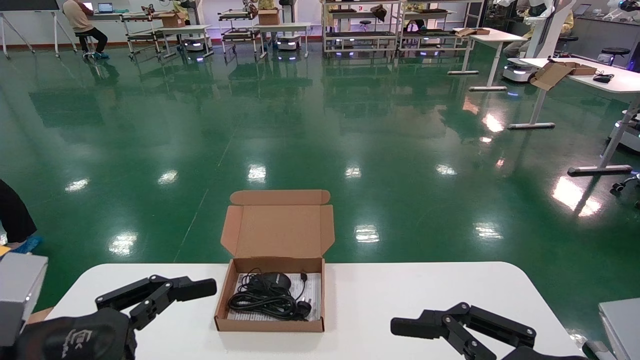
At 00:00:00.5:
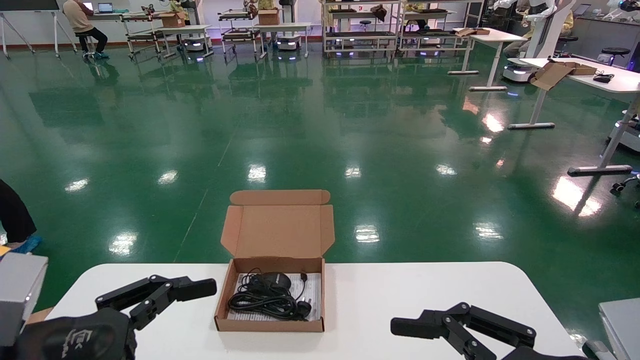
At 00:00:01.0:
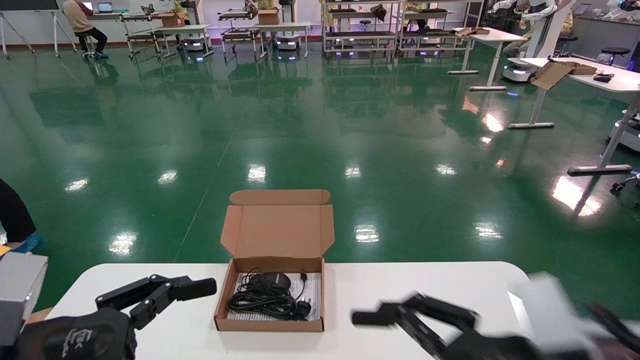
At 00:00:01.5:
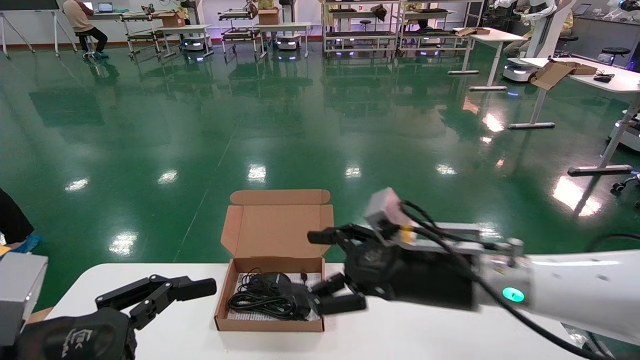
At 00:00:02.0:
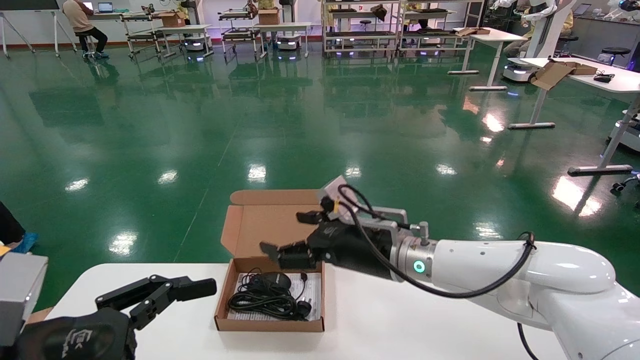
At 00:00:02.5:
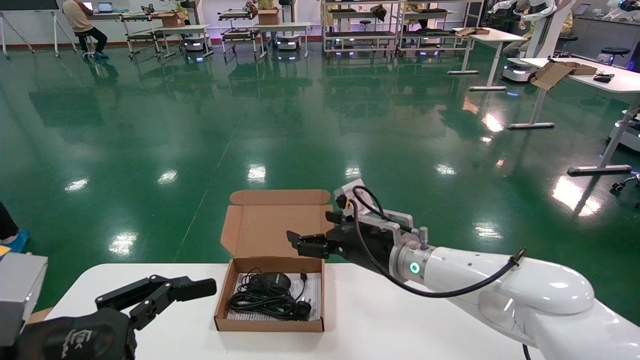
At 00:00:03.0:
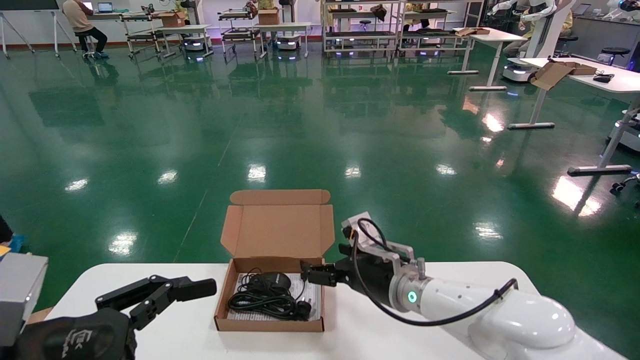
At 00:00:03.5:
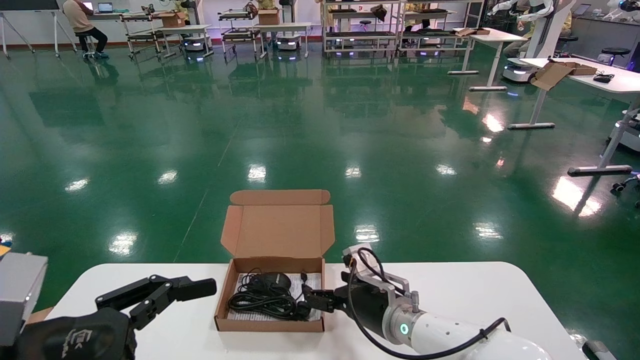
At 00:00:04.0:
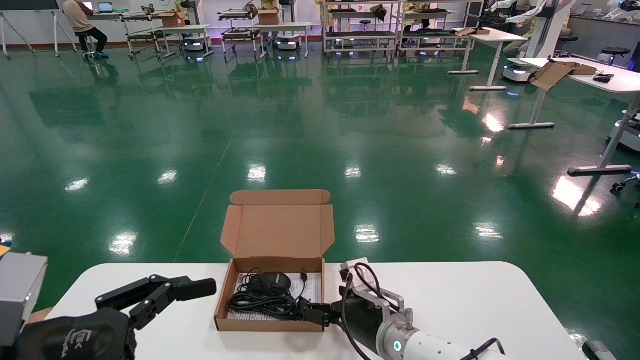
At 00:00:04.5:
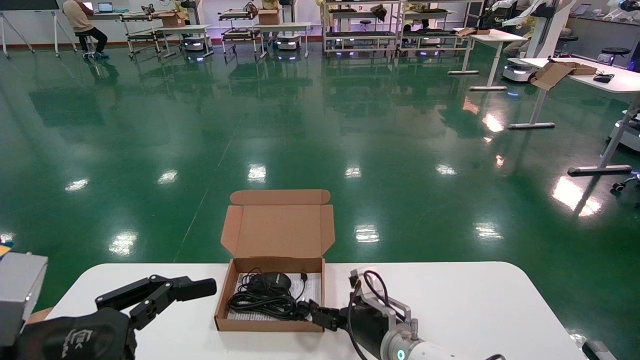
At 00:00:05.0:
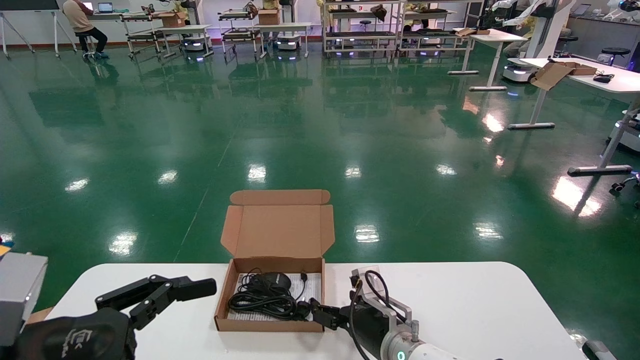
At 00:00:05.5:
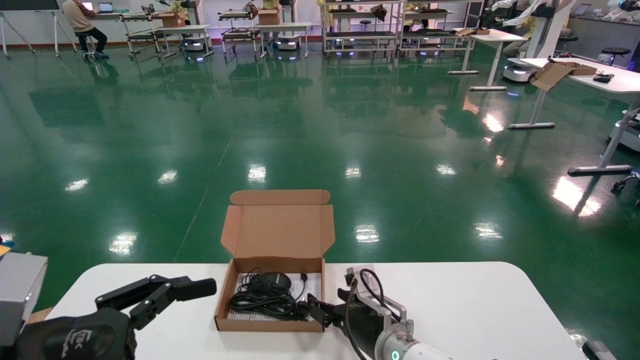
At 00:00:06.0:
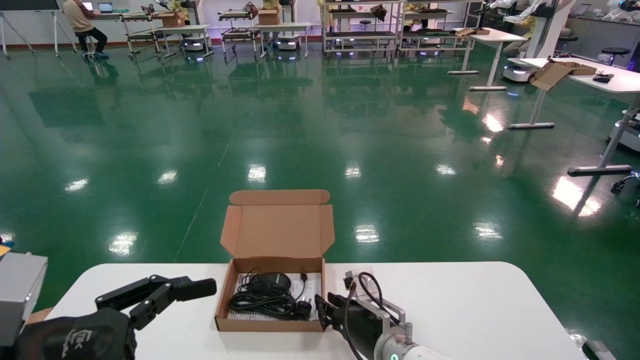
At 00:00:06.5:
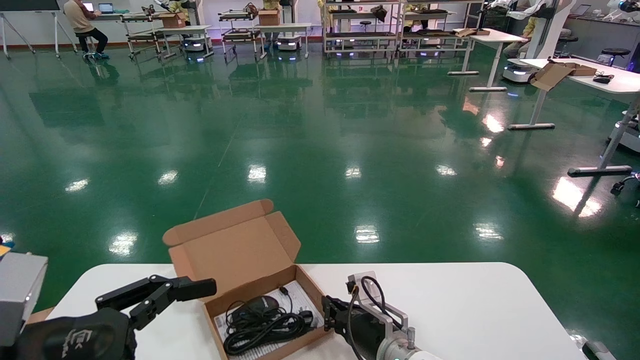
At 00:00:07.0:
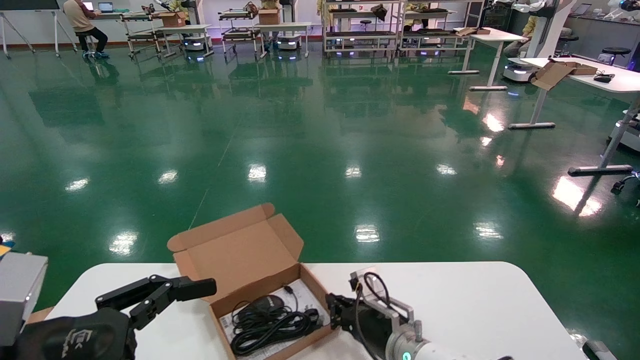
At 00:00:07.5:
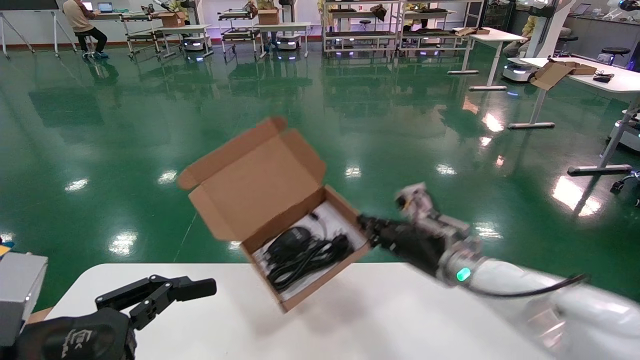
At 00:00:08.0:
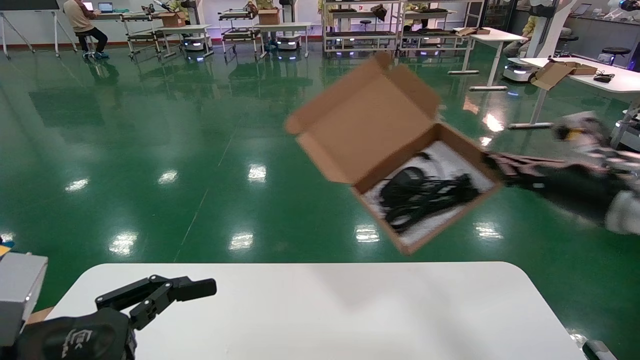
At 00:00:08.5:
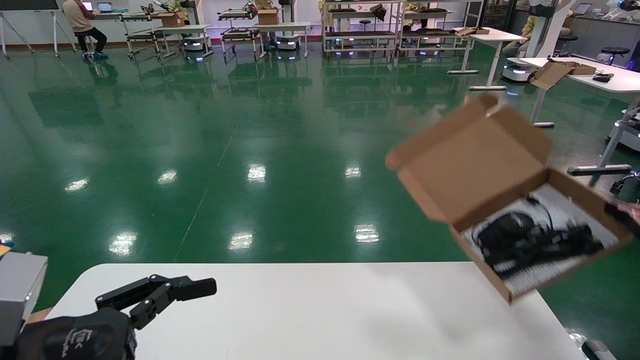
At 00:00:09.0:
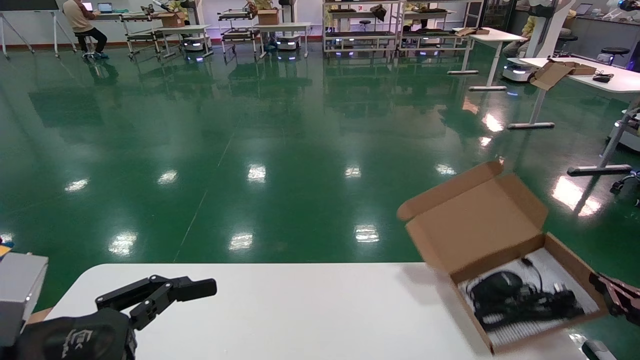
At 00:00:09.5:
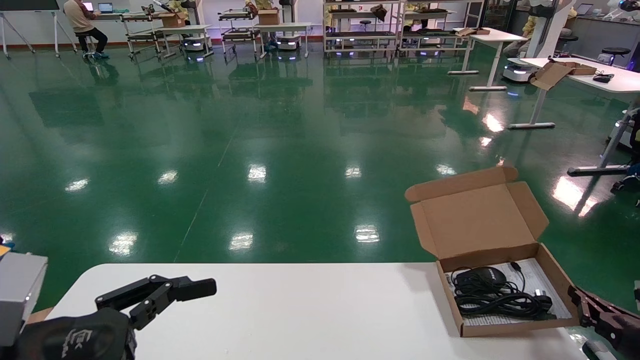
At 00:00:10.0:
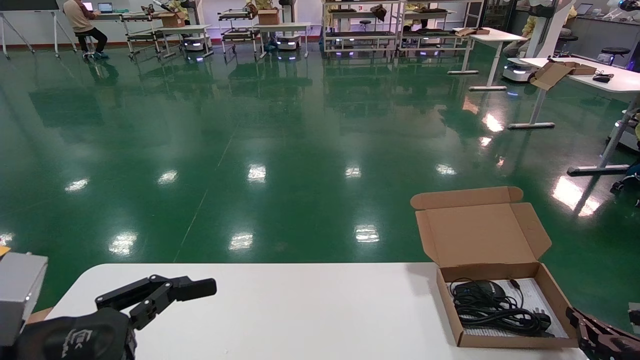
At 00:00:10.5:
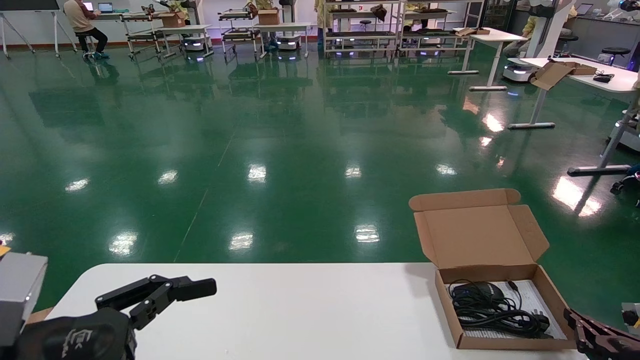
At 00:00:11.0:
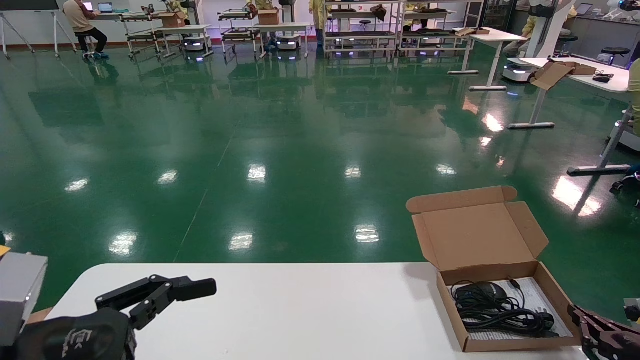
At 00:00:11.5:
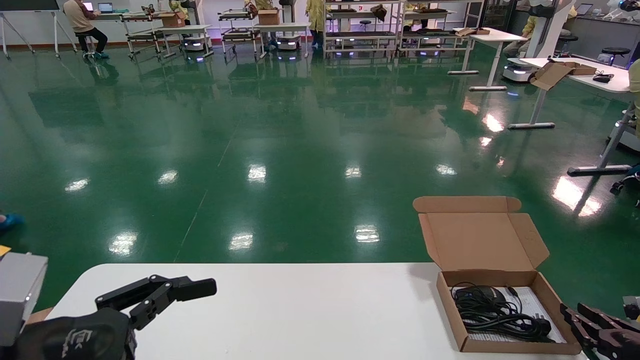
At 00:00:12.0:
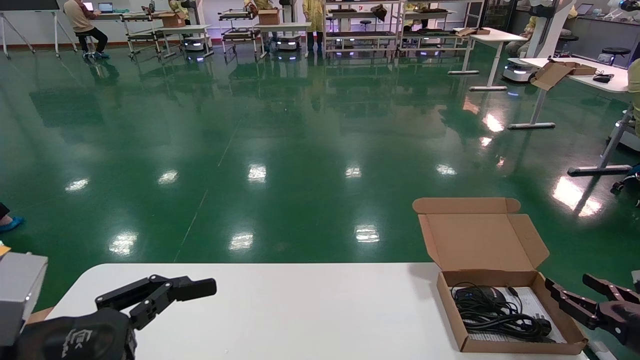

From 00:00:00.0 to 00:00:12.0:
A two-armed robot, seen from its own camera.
Task of the whole recording: move the position of the storage box with accessories on the table.
Step, from 00:00:01.0 to 00:00:07.0: Grab and pick up the open mouse box from the accessory packaging area.
Step, from 00:00:07.5 to 00:00:11.5: Place the open mouse box onto the operation table.
From 00:00:00.0 to 00:00:02.0: The right gripper moves forward and to the left, some 30 cm.
From 00:00:02.0 to 00:00:04.0: The right gripper is displaced downward by some 15 cm.
From 00:00:04.0 to 00:00:06.0: The right gripper closes its fingers.
From 00:00:06.0 to 00:00:08.0: The right gripper shifts approximately 35 cm to the right and upward.
From 00:00:08.0 to 00:00:10.0: The right gripper shifts approximately 30 cm downward and to the right.
From 00:00:10.0 to 00:00:12.0: The right gripper shifts some 5 cm upward, and opens its fingers.

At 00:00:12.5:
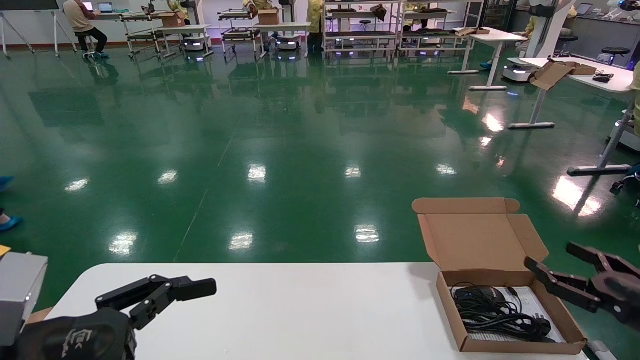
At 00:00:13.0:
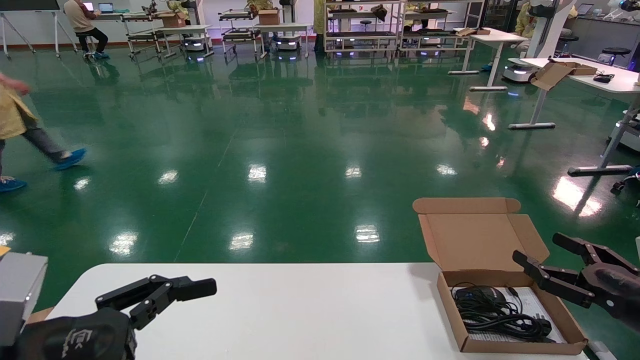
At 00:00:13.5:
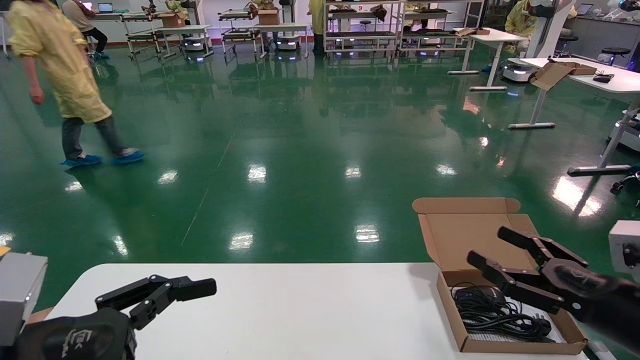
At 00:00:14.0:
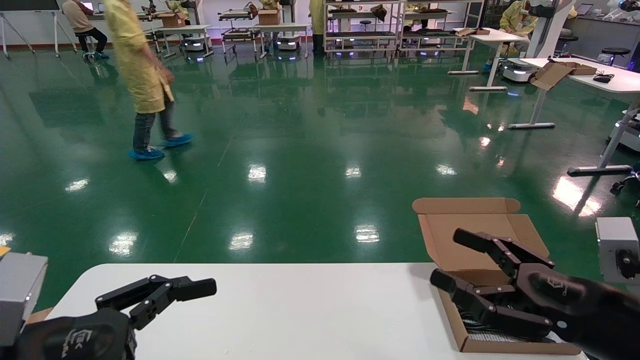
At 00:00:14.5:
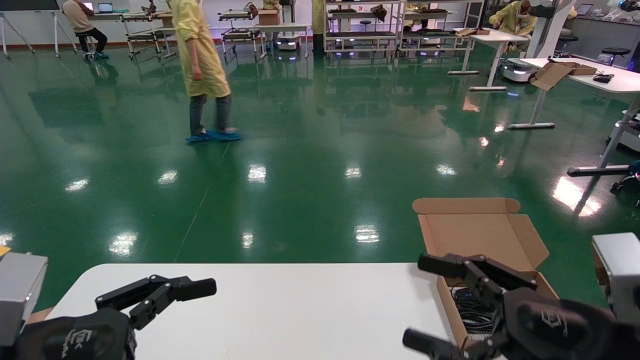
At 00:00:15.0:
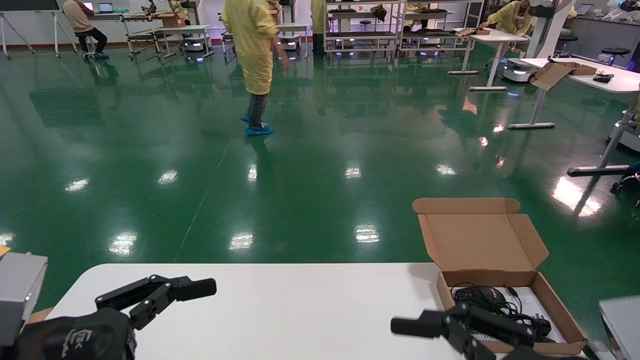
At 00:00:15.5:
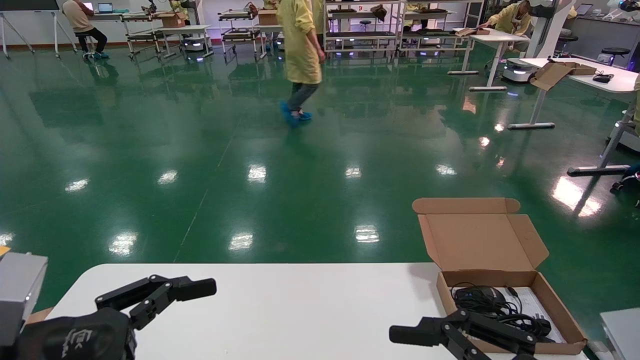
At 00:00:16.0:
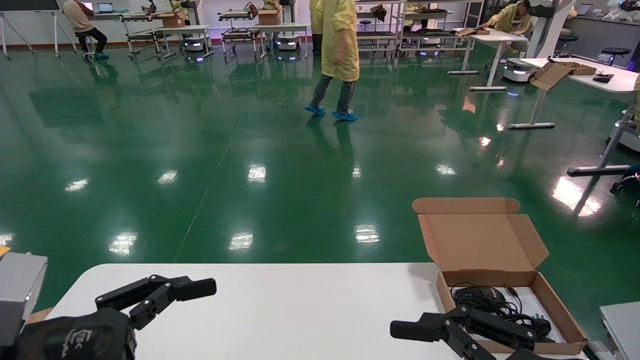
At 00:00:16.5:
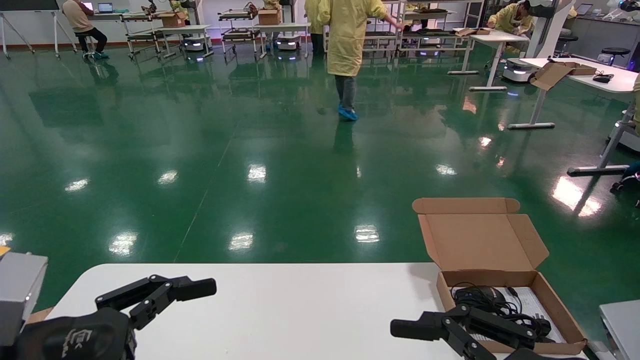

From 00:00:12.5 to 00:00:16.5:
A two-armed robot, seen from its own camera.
Task of the whole recording: move the position of the storage box with accessories on the table.
From 00:00:12.5 to 00:00:14.5: The right gripper moves to the left and backward, roughly 20 cm.
From 00:00:14.5 to 00:00:16.5: The right gripper goes some 5 cm backward.
